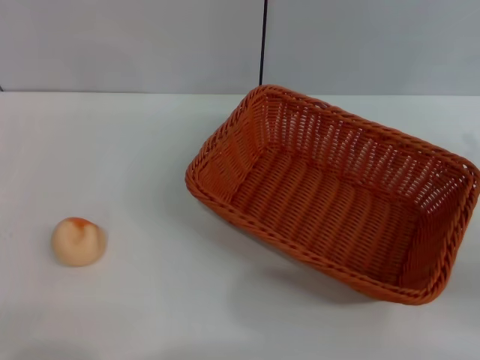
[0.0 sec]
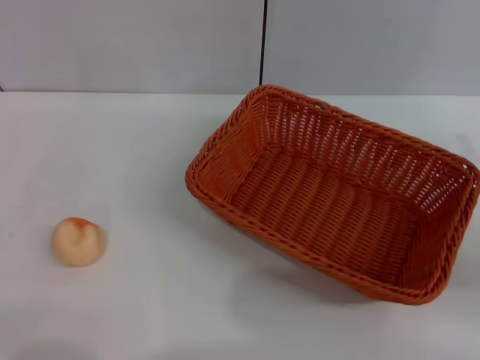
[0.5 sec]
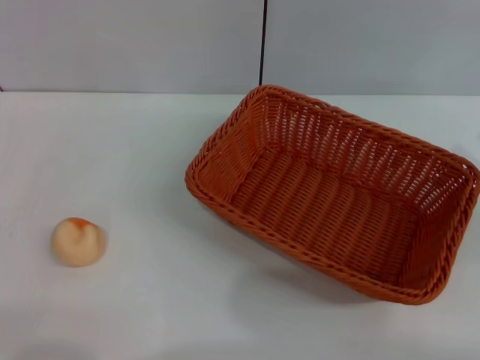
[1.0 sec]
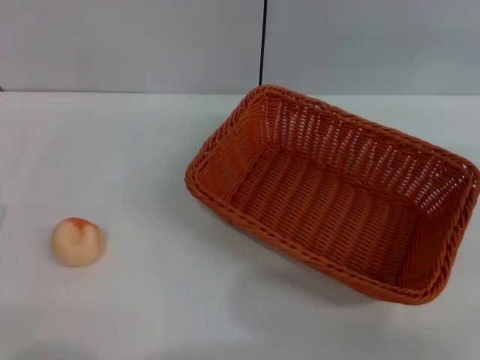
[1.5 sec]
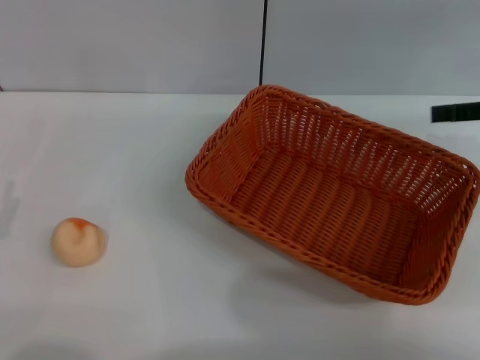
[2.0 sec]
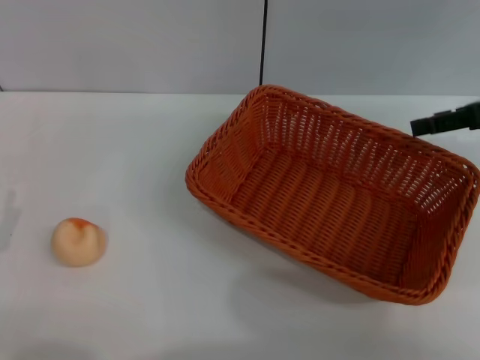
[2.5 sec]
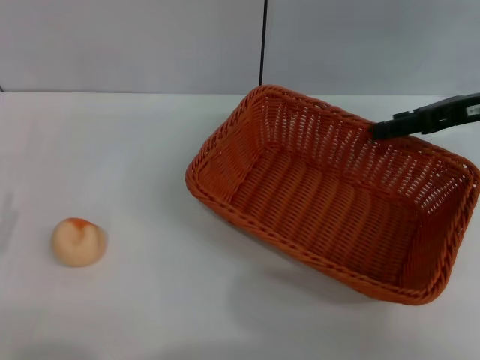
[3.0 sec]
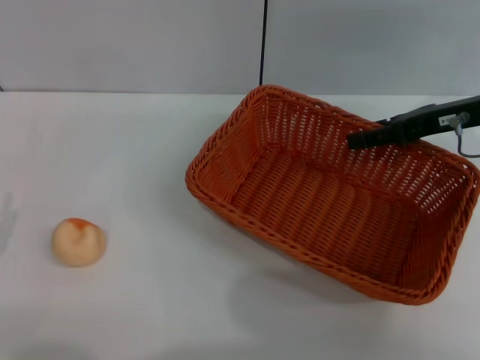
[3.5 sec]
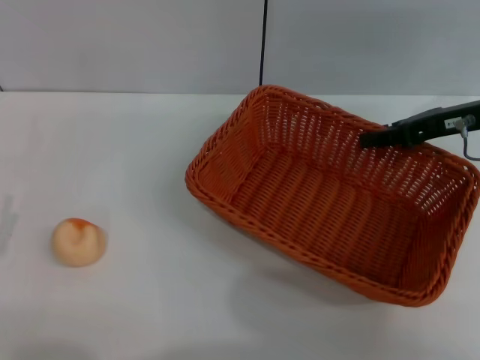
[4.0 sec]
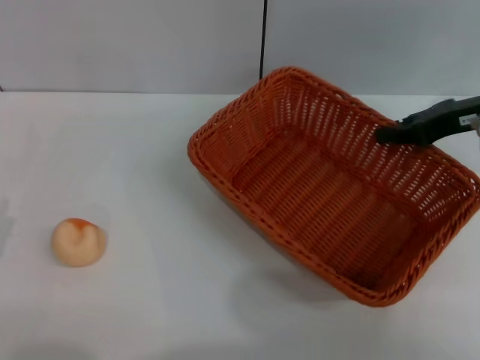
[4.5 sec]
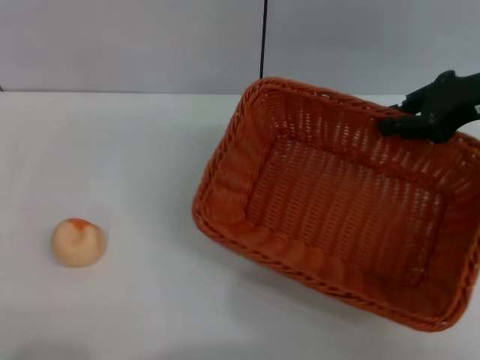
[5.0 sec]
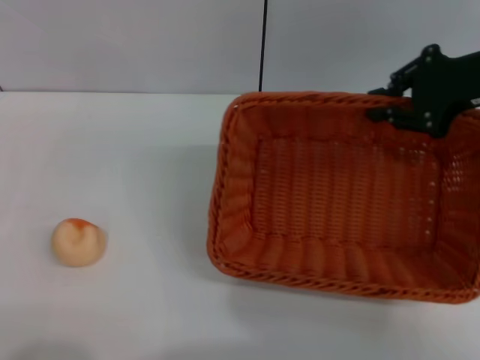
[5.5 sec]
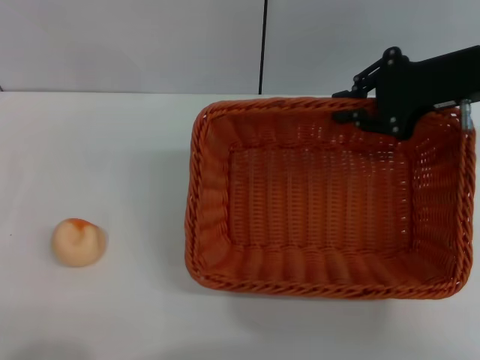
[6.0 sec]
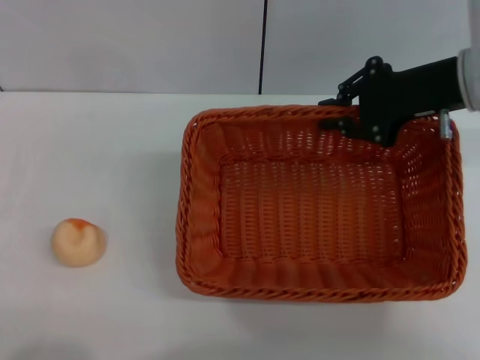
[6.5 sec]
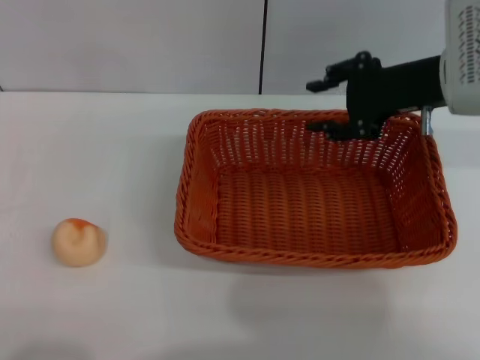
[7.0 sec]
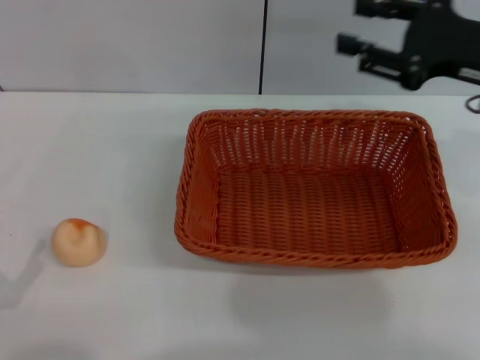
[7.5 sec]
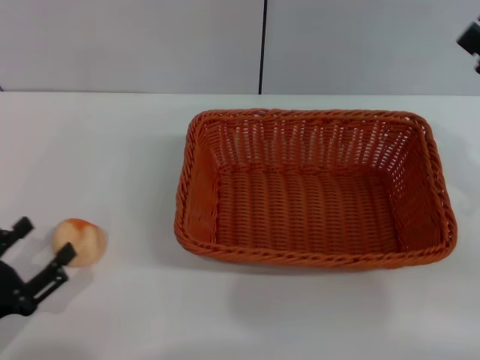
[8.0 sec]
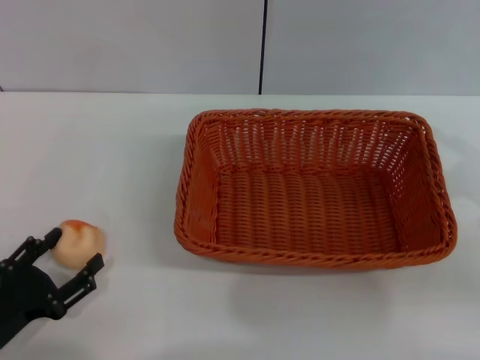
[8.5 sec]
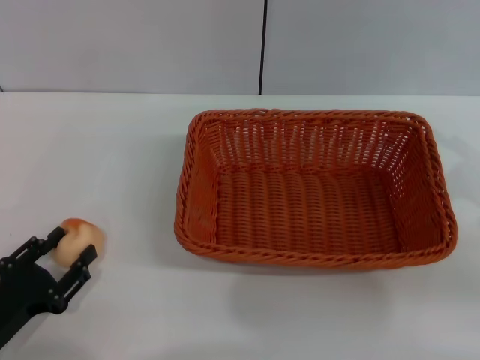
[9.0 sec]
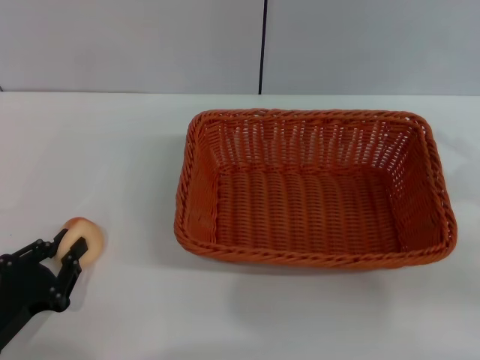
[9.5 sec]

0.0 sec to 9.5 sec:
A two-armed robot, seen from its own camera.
Step, 0.0 sec to 7.0 sec: Move the basket to the center of view with the right gripper.
0.0 sec to 2.0 sec: The right gripper goes approximately 15 cm forward and upward.
2.0 sec to 4.0 sec: The right gripper travels to the left by roughly 5 cm.
4.0 sec to 5.5 sec: The right gripper shifts about 5 cm upward, and closes; the left gripper moves backward, about 5 cm.
5.5 sec to 7.5 sec: The right gripper opens its fingers.
7.5 sec to 9.5 sec: The right gripper is displaced backward, to the right and downward by approximately 15 cm. Meanwhile the left gripper ends up approximately 10 cm from where it was, and closes up.

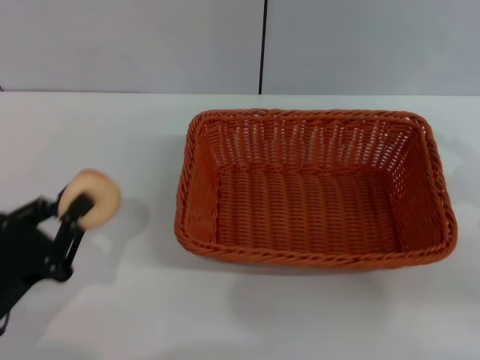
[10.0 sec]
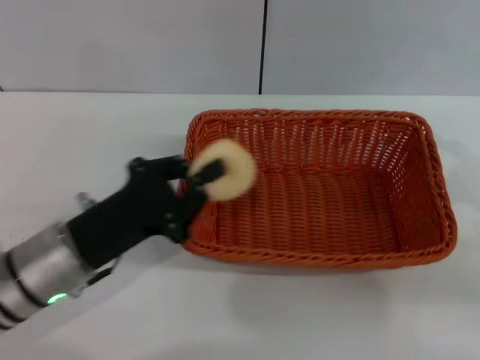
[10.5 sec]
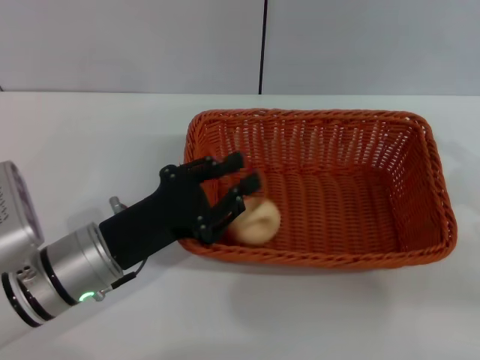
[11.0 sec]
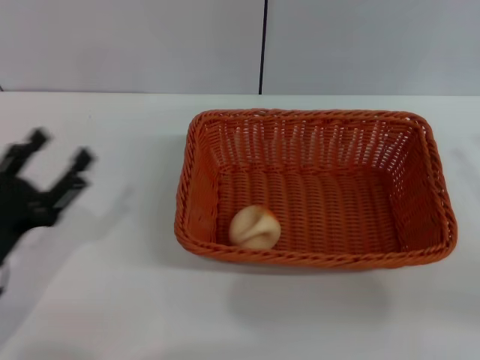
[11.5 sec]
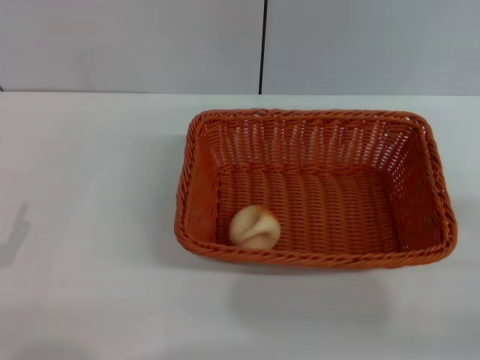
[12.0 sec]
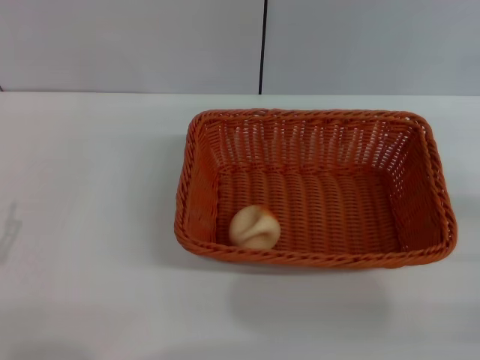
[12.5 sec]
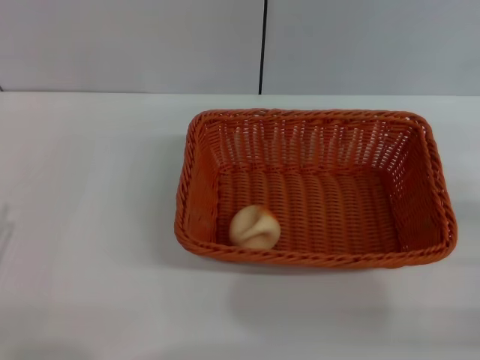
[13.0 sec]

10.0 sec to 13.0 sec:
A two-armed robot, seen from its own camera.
Step, 10.5 sec to 11.0 sec: Place the egg yolk pastry into the basket with the left gripper.
10.0 sec to 11.5 sec: The left gripper goes to the right and returns, roughly 10 cm each way, and opens.
11.5 sec to 13.0 sec: The left gripper shifts roughly 5 cm backward. Meanwhile the right gripper goes some 5 cm downward.
